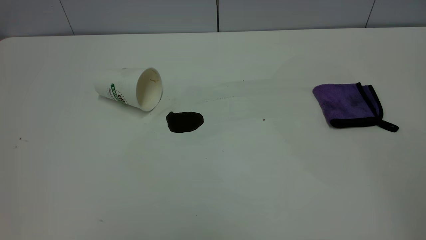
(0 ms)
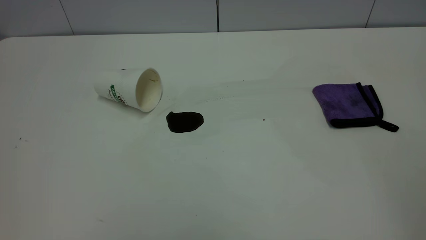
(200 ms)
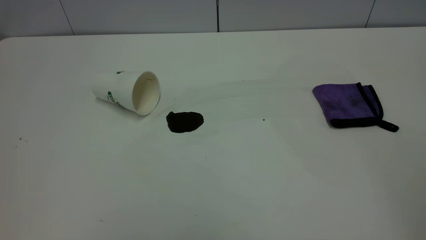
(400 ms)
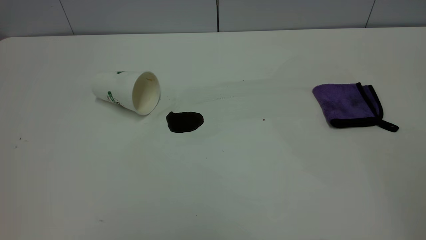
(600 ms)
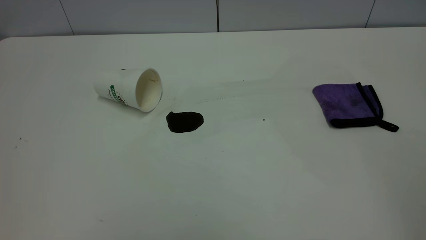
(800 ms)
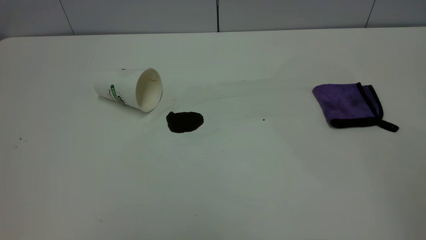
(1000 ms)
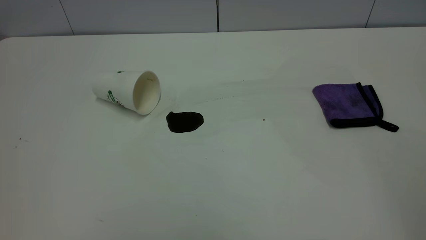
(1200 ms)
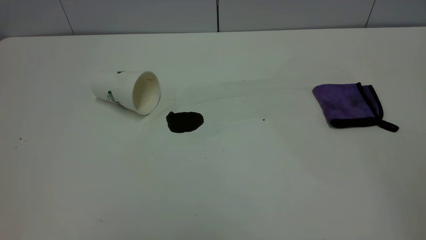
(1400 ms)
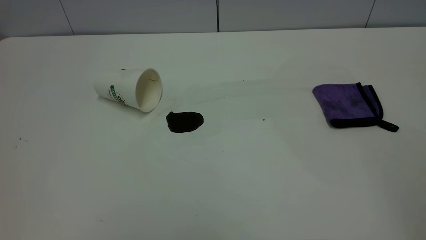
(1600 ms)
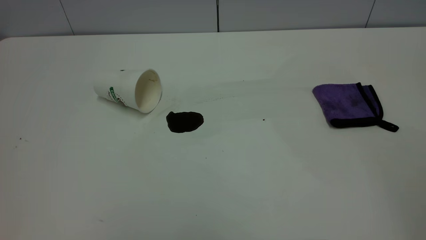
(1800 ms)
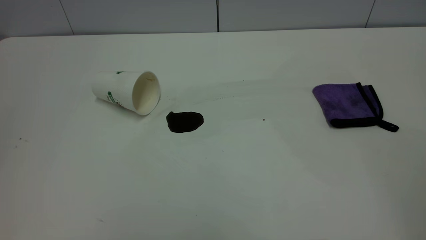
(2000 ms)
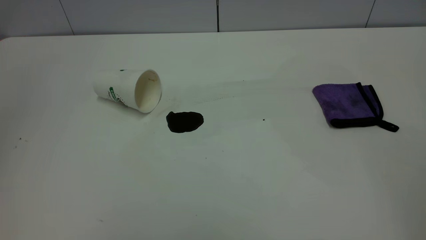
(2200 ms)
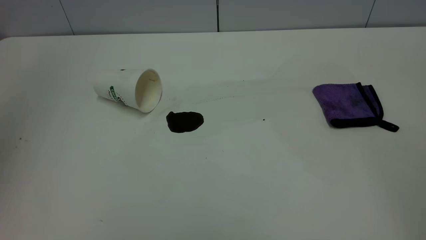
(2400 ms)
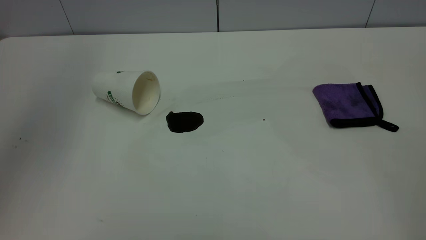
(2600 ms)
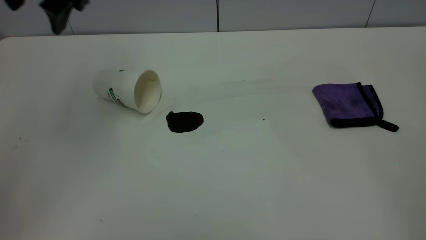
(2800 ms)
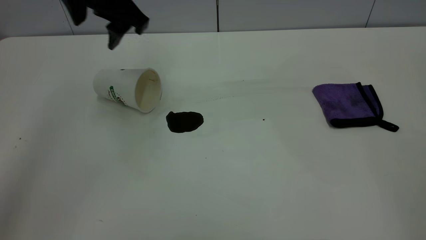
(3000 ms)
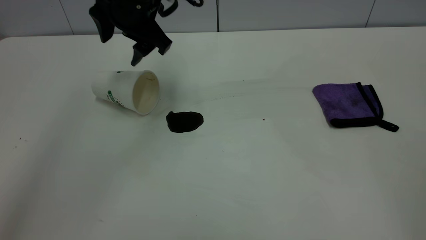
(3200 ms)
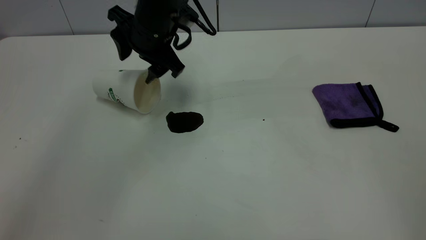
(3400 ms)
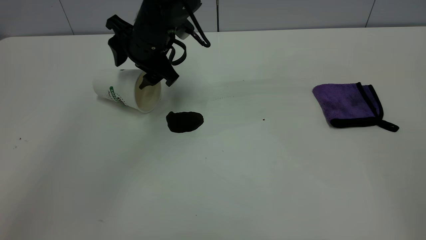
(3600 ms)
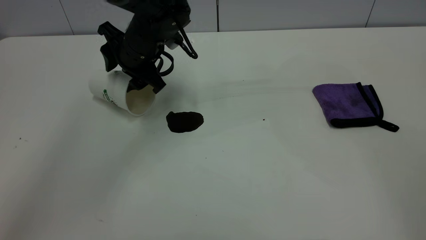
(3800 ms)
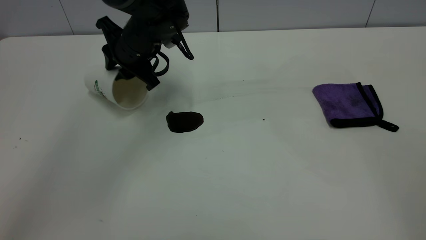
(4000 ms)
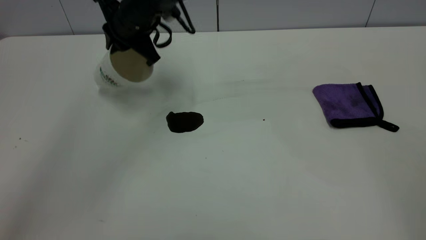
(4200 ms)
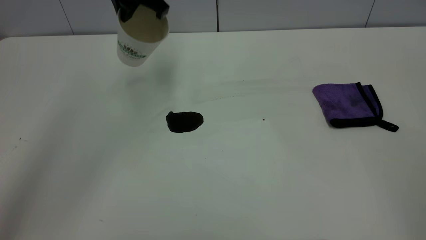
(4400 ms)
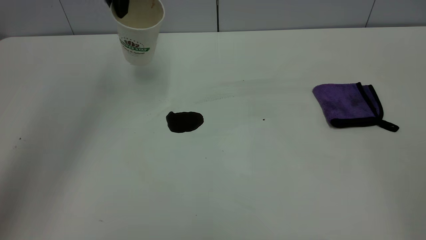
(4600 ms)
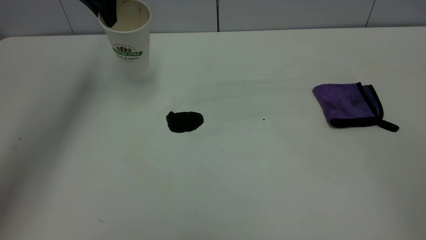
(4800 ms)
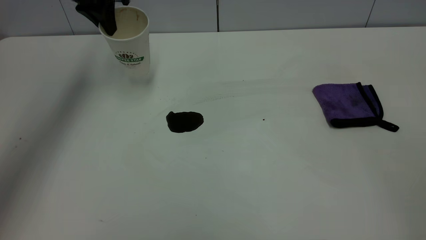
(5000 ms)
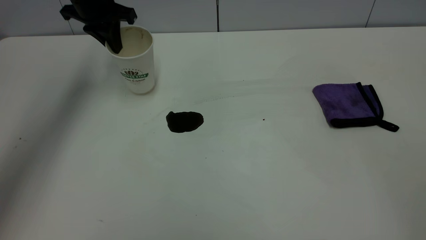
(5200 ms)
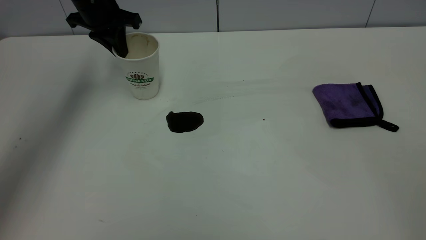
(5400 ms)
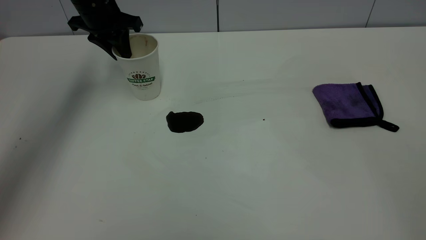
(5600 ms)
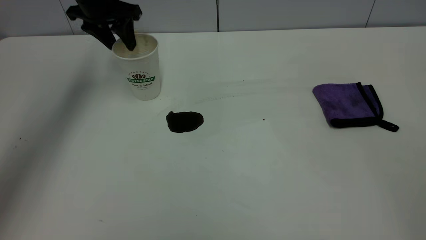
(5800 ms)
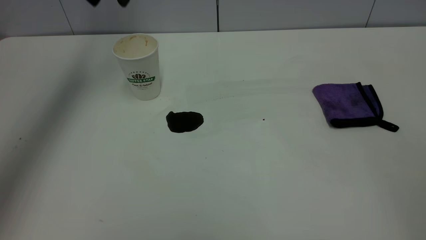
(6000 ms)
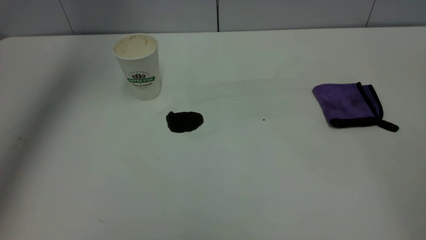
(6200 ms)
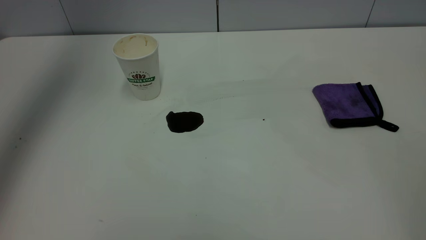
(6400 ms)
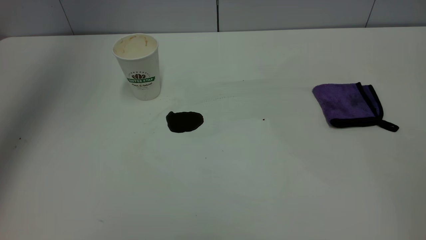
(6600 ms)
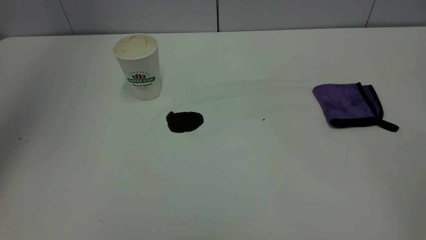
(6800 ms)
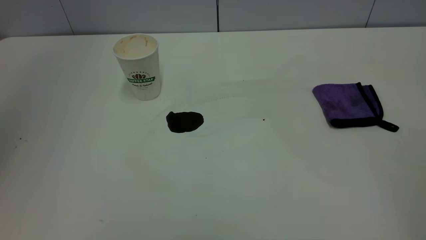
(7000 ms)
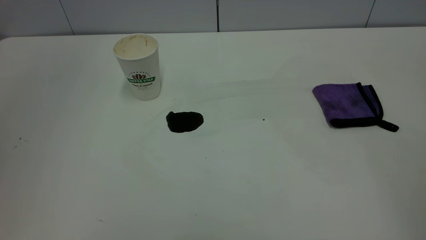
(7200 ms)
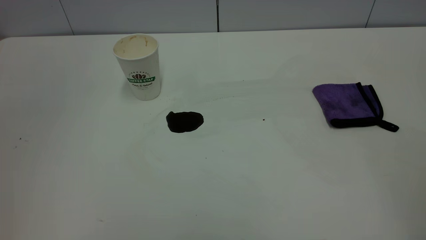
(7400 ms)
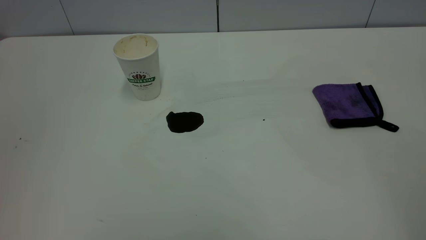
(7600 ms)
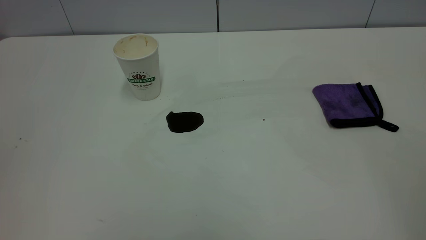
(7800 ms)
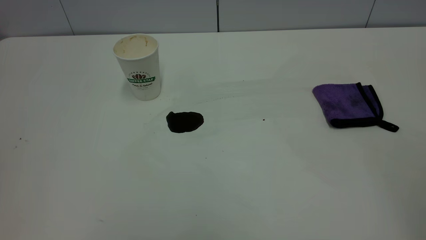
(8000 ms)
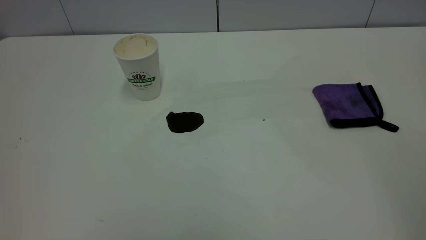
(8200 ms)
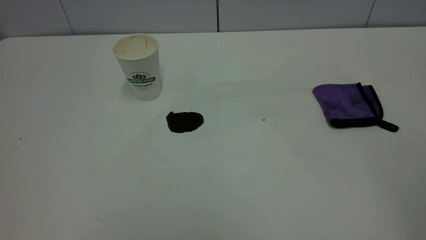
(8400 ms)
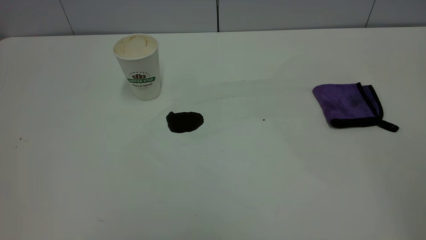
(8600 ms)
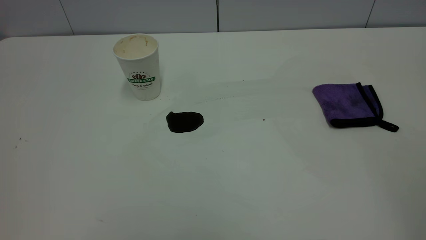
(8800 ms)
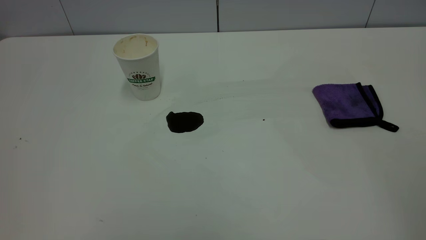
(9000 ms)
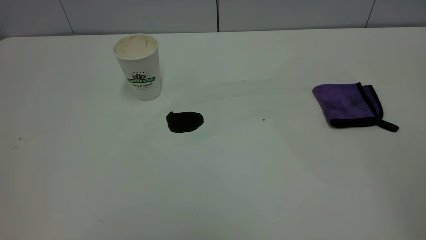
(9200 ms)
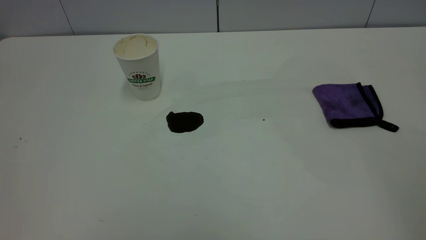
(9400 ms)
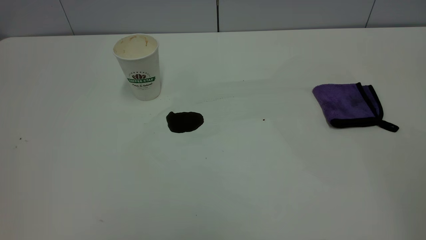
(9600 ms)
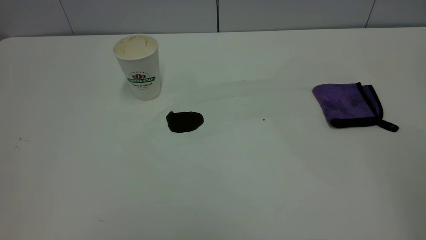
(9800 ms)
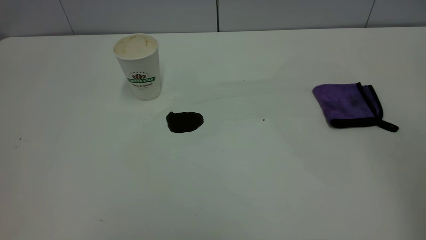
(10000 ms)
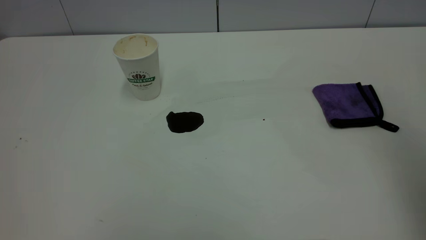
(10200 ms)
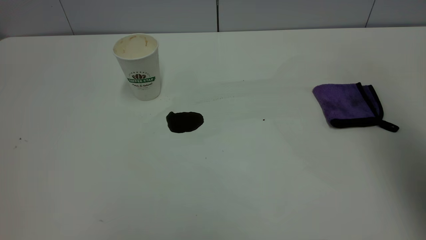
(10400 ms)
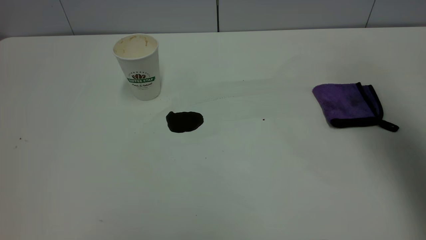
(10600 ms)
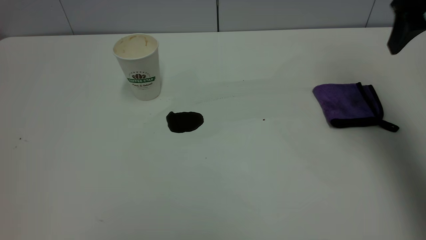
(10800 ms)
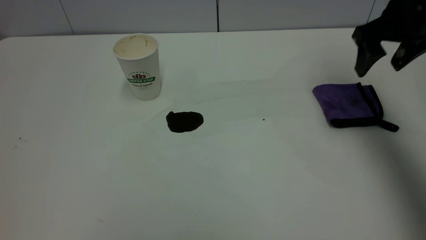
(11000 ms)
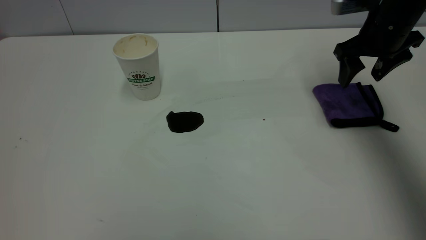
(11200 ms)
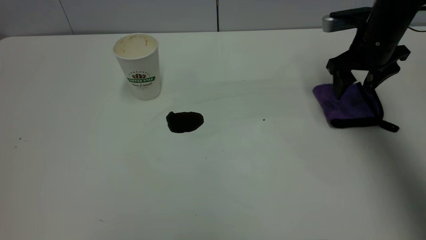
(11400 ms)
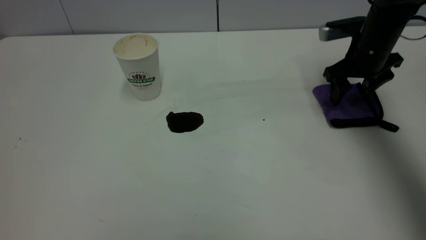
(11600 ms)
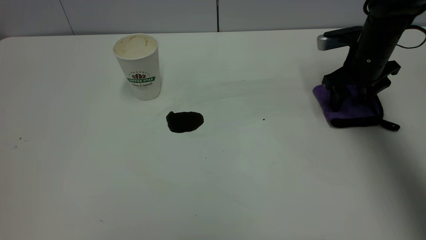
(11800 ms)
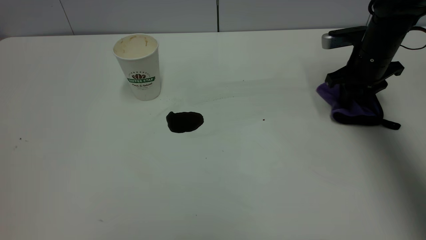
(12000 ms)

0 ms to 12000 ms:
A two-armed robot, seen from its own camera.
Task of the whole recording: the left gripper pick up the fallen cup and place it upright, the right gripper grasp the purple rag and wipe the coffee stain on the table, the right gripper put the purple rag back in its original position.
Step, 0 ms to 5800 ms: Stand the paper cup upright.
0 ms to 1600 ms: Both grippers stay about where they are.
1600 ms to 3000 ms: The left gripper goes approximately 50 cm forward and to the right, and opens.
3000 ms to 4400 ms: The left gripper goes about 5 cm forward, moves approximately 10 cm downward and comes back, and closes up.
4400 ms to 6000 ms: The left gripper heads to the left and upward, covering some 10 cm, and opens up.
6000 ms to 7600 ms: The left gripper heads backward, covering about 40 cm, and closes up.
9000 ms to 10400 ms: The right gripper shifts approximately 25 cm forward.
10400 ms to 12000 ms: The right gripper goes roughly 35 cm downward and forward, and closes up.

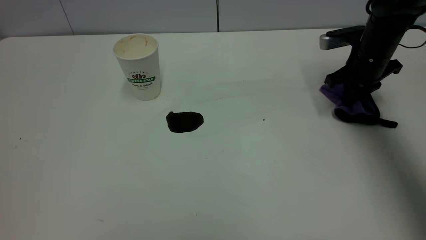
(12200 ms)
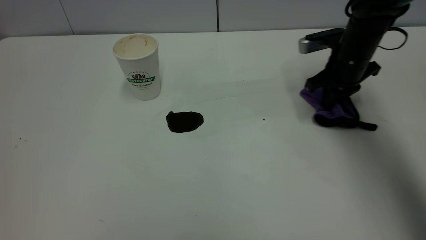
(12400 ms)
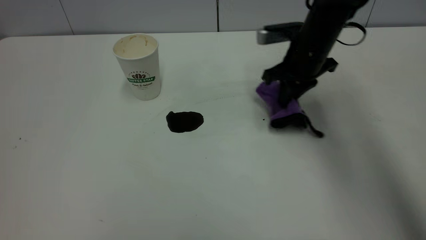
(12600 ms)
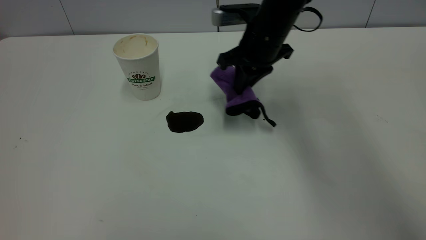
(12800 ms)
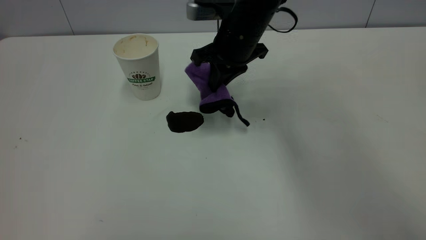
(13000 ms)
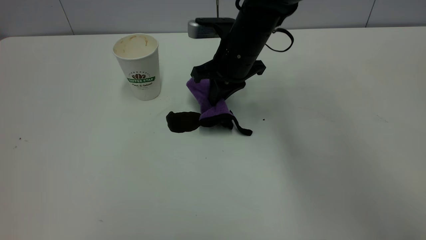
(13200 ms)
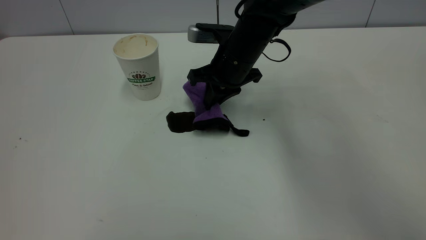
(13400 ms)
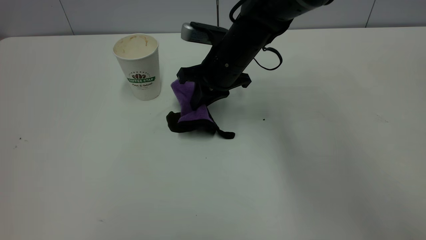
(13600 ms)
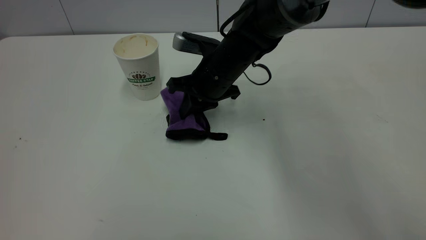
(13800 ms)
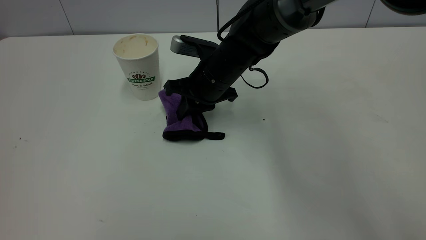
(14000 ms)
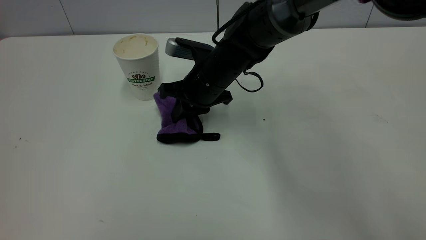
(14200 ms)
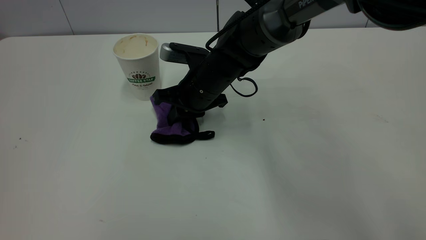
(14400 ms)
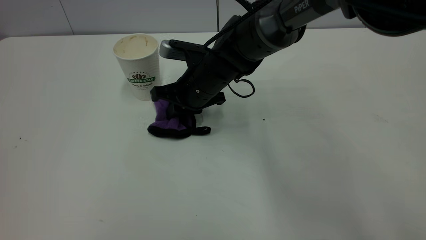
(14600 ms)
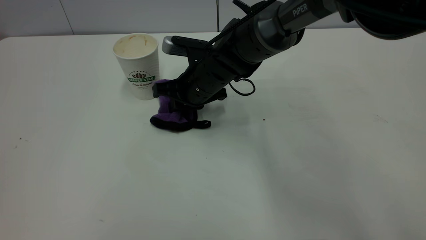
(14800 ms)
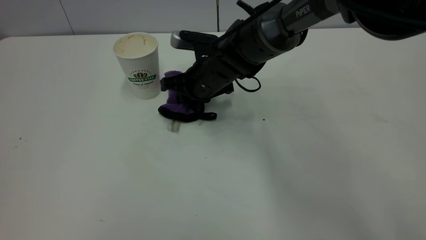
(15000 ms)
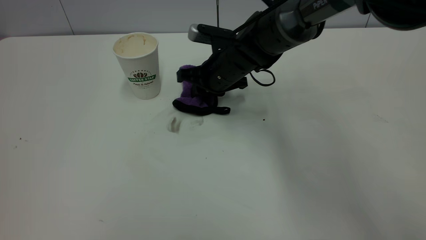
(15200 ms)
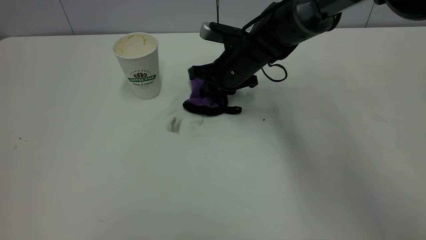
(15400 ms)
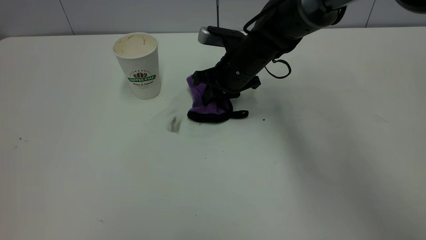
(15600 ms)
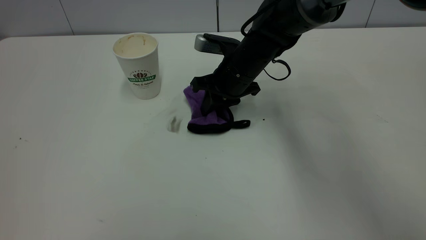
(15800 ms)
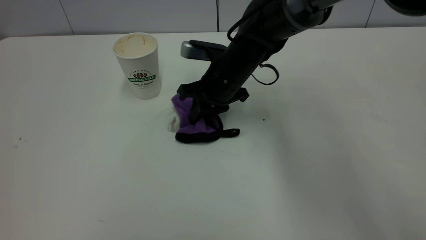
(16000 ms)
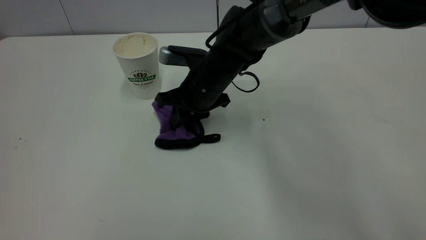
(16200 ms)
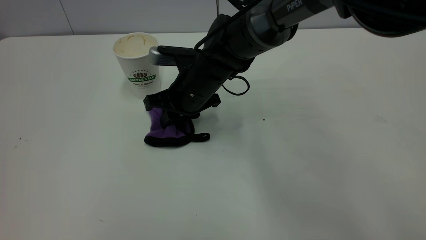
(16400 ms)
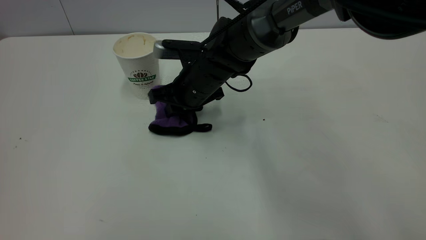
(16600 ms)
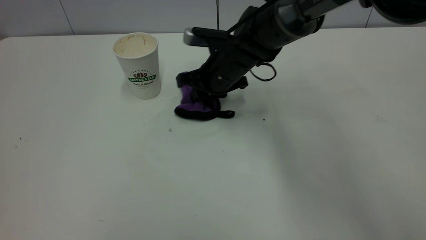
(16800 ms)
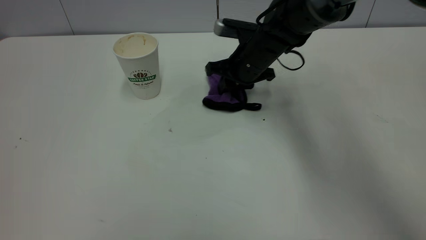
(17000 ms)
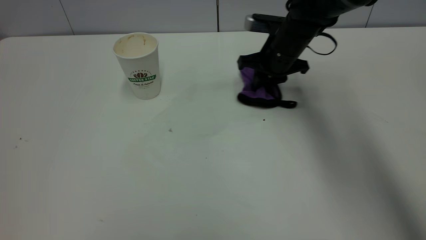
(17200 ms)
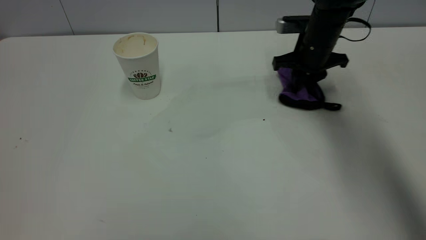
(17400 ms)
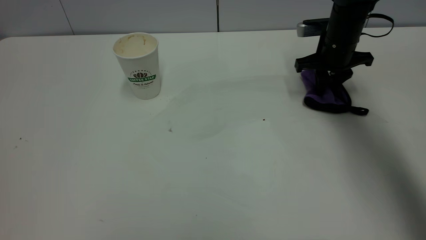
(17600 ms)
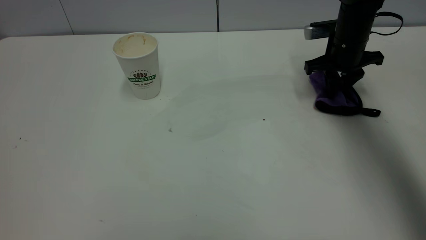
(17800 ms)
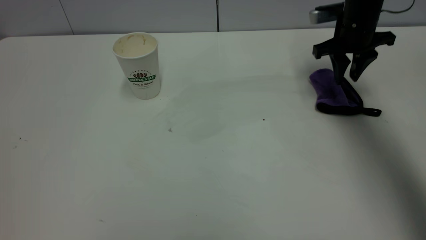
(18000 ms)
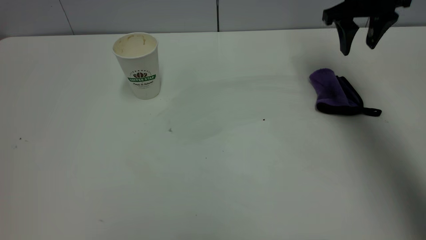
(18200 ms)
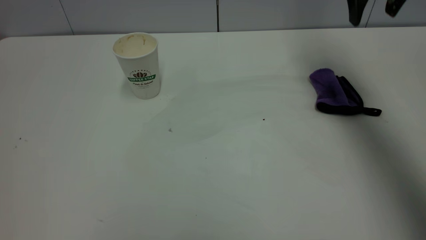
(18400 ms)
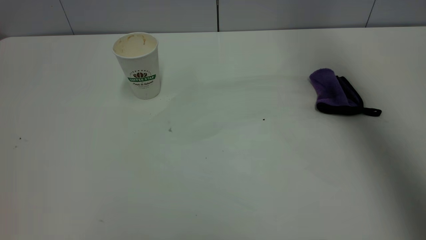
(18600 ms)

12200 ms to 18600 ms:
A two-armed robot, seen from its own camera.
Task of the whole recording: the left gripper pick up the fallen cup and place it upright, the right gripper grasp the purple rag and wipe the coffee stain on the table, the right gripper put the purple rag back in its original position.
Step, 12200 ms to 18000 ms: Wipe the stains off the table with a rag.
12200 ms to 13800 ms: The right gripper goes approximately 25 cm to the left.
13800 ms to 15400 ms: The right gripper ends up approximately 5 cm from where it was.
15400 ms to 17000 ms: The right gripper moves about 10 cm to the left and comes back.
17000 ms to 18600 ms: The right gripper is displaced upward and to the right by some 35 cm, and opens its fingers.
